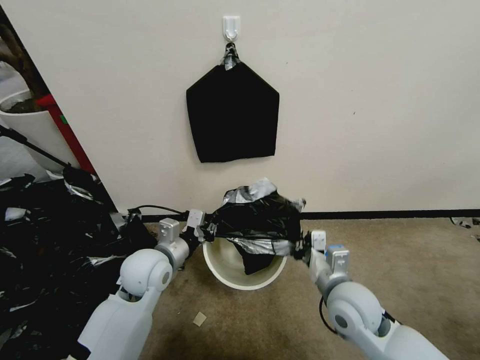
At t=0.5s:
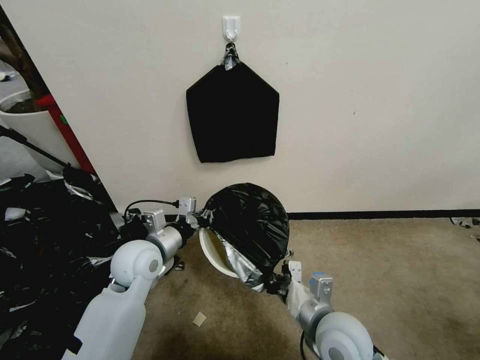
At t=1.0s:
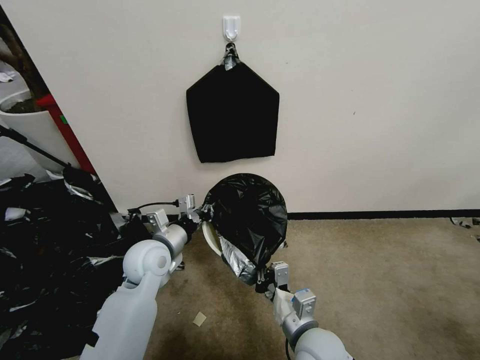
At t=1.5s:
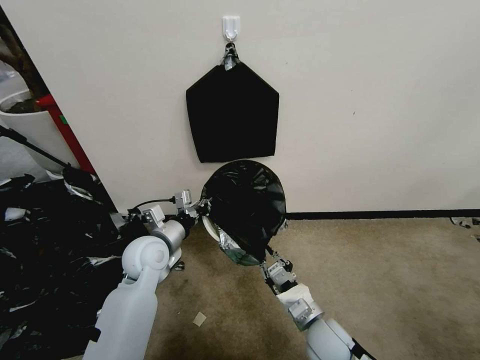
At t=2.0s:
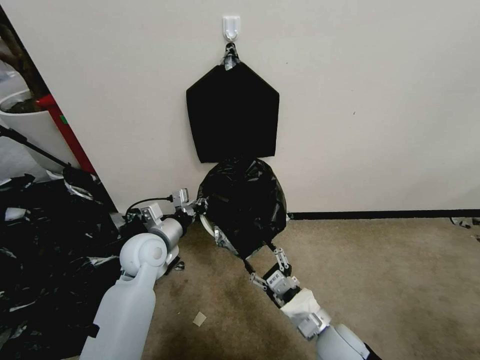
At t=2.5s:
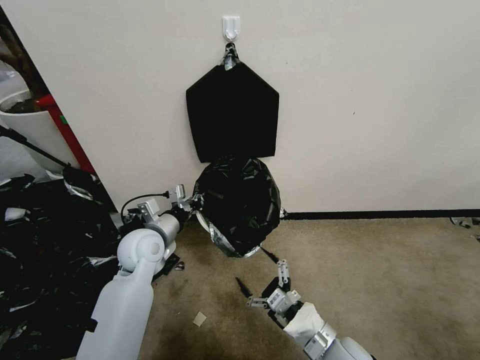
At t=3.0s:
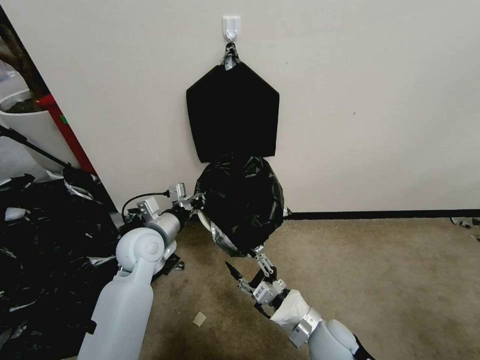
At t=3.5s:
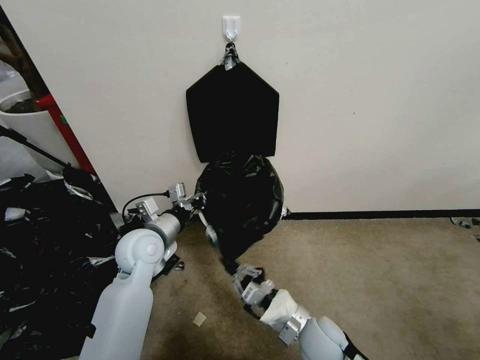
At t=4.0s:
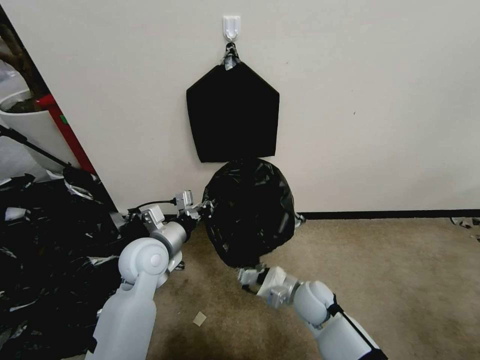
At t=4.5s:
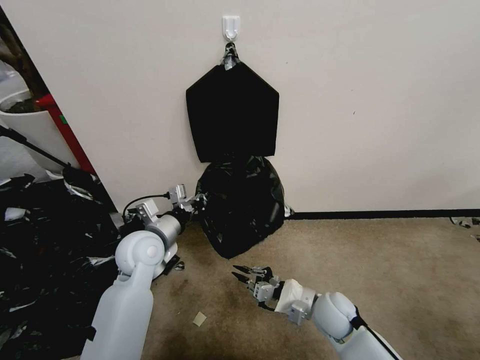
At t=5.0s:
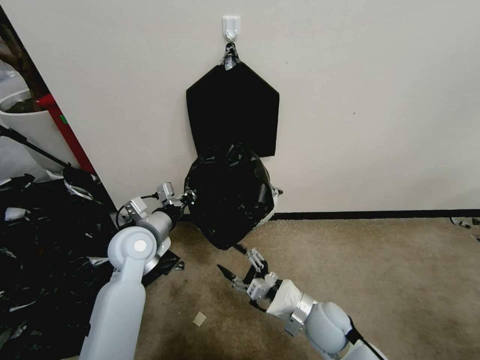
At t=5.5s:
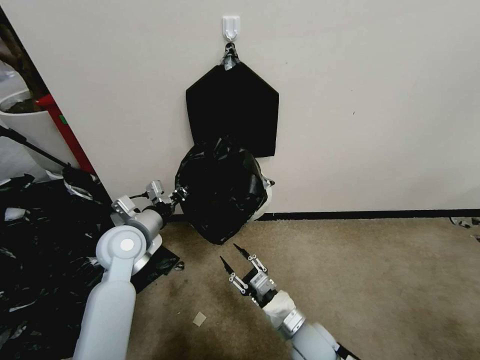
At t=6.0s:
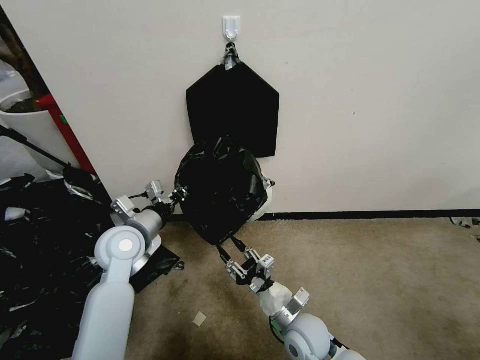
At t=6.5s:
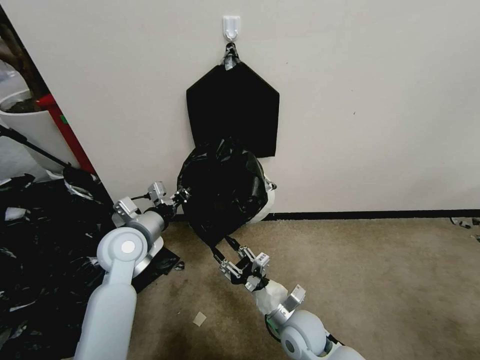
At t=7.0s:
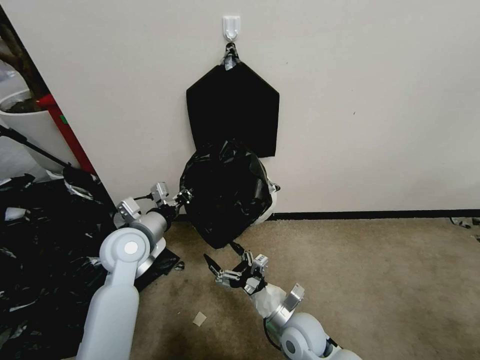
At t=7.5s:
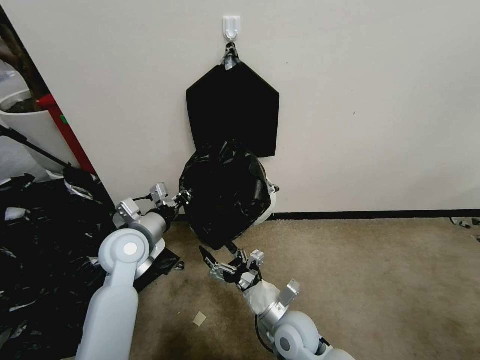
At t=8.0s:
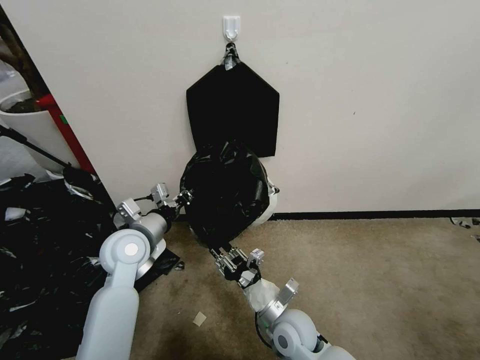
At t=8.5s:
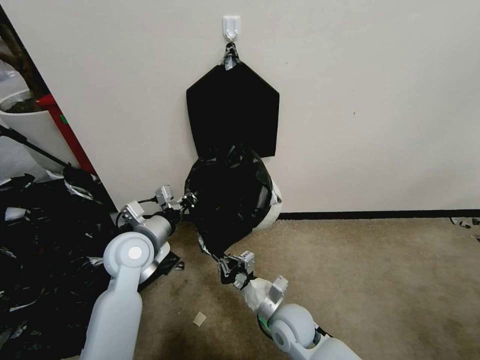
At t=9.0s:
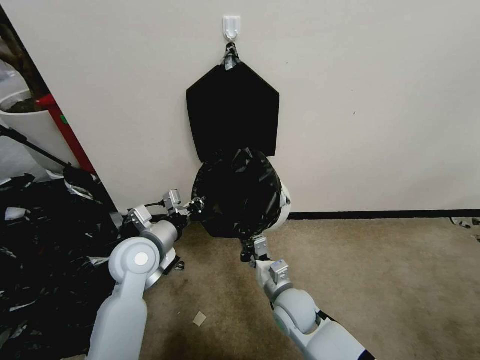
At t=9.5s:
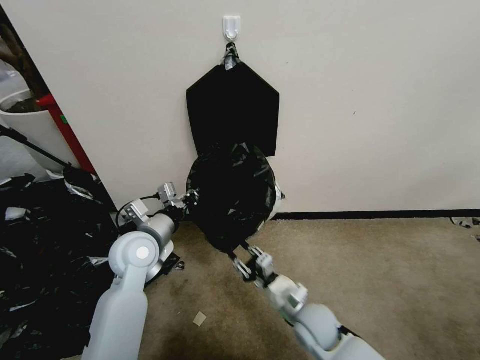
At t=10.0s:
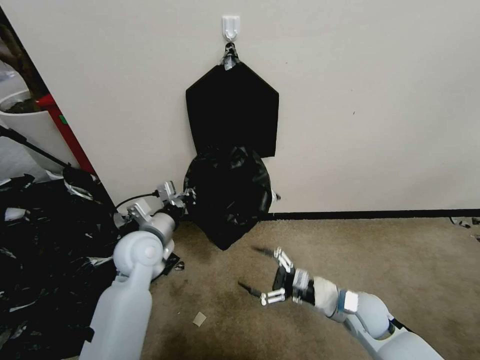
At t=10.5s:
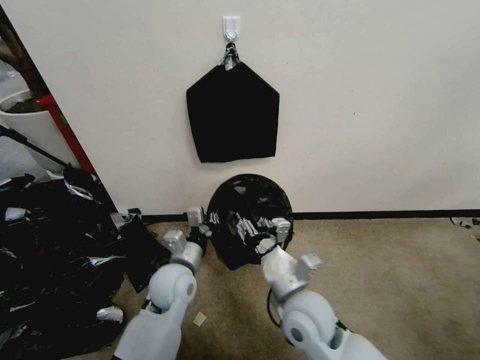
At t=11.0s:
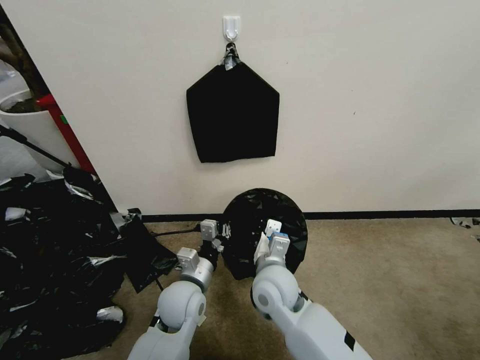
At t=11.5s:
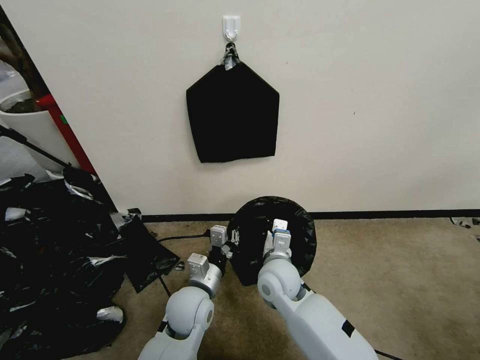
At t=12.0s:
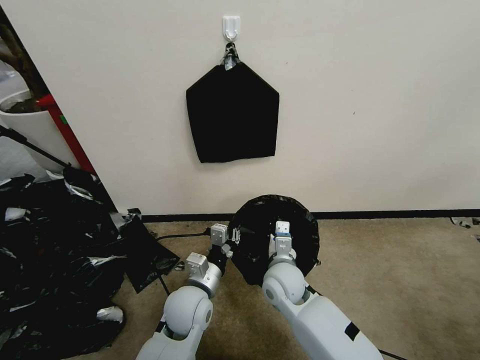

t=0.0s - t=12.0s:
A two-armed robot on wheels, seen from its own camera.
Task of the whole recording: Place a trash bag onto the trash bin.
t=0.0s - t=2.0s: The right gripper heads downward and backward, covering approximately 10 cm, and opens up.
t=2.0s - t=4.0s: The right gripper travels forward by about 10 cm, and closes.
t=4.0s - t=6.0s: The right gripper moves backward, some 5 cm, and opens up; the left gripper shifts by about 5 cm.
t=6.0s - t=8.0s: The right gripper opens, then closes once more.
t=8.0s - t=10.0s: The right gripper is displaced to the right by some 15 cm, and opens.
t=10.0s - t=12.0s: The right gripper travels to the left by some 15 cm, and closes up, while the left gripper moves to the right, downward and backward, roughly 15 cm.

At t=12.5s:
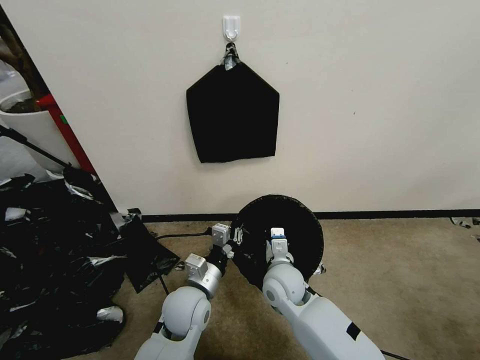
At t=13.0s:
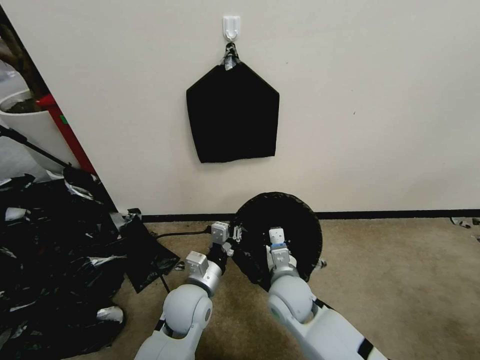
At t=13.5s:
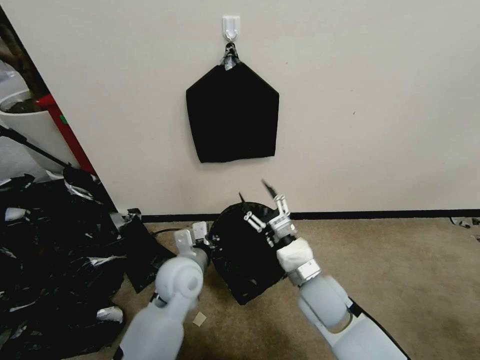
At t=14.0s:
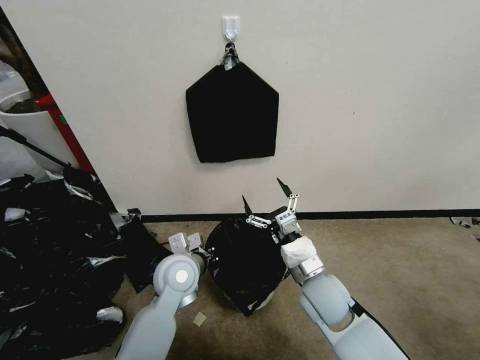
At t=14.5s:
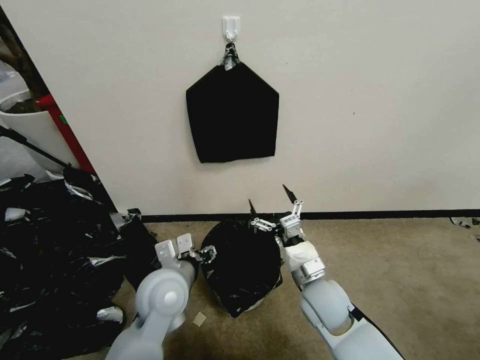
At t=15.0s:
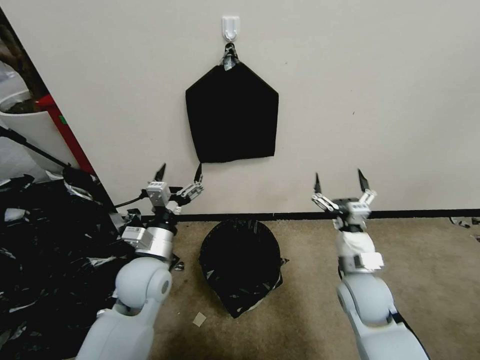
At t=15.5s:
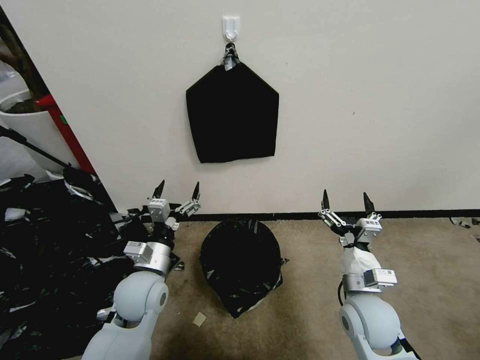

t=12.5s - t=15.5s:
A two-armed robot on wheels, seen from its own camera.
Task of the whole recording: Place a trash bag onto the trash bin.
t=12.5s - t=14.0s: The left gripper is displaced upward and forward by approximately 5 cm. The right gripper moves to the right, about 10 cm, and opens its fingers.
t=14.0s - t=15.5s: The right gripper heads to the right, covering some 10 cm, while the left gripper is displaced to the left by approximately 5 cm, and opens its fingers.

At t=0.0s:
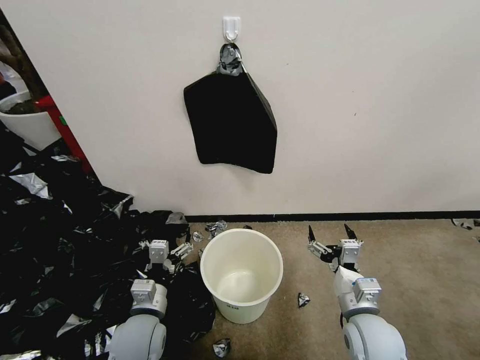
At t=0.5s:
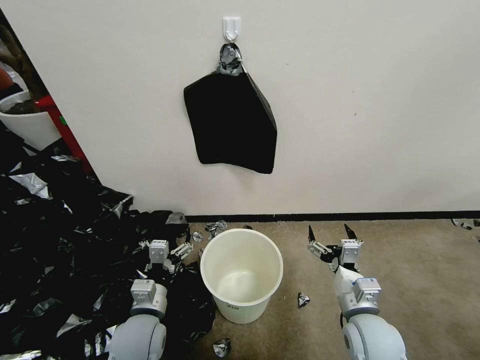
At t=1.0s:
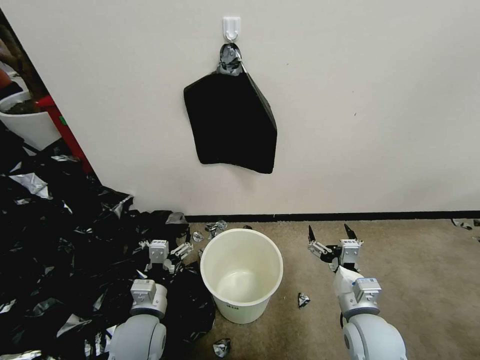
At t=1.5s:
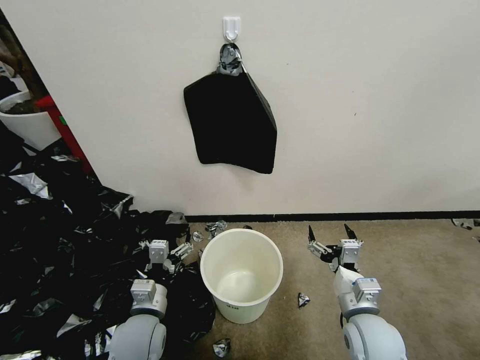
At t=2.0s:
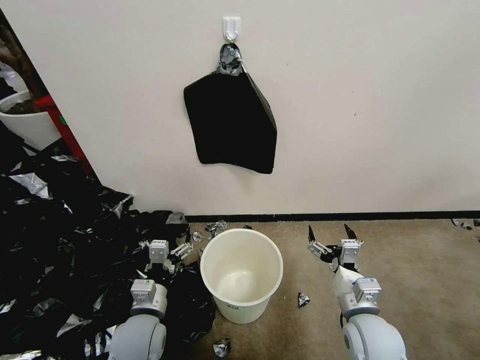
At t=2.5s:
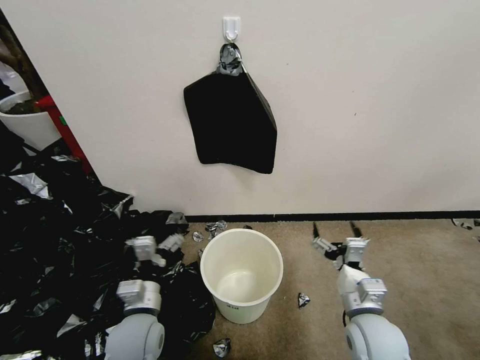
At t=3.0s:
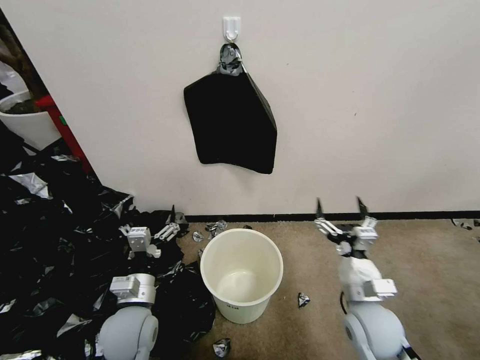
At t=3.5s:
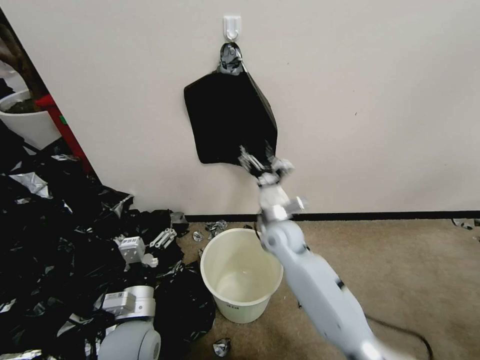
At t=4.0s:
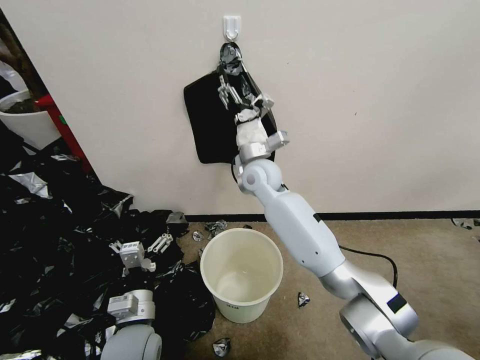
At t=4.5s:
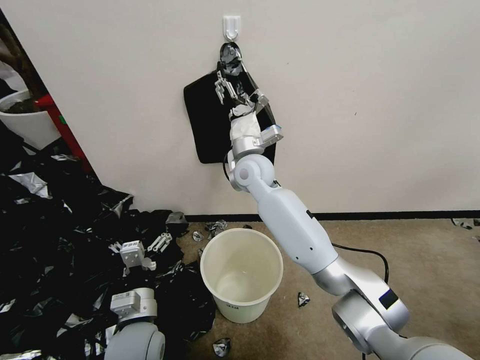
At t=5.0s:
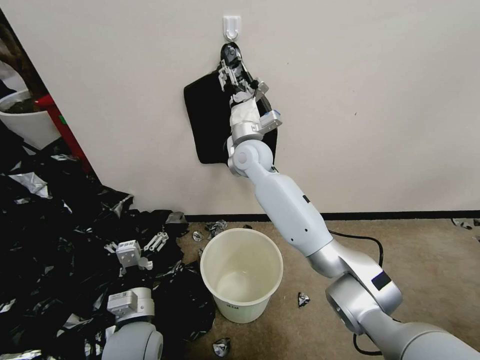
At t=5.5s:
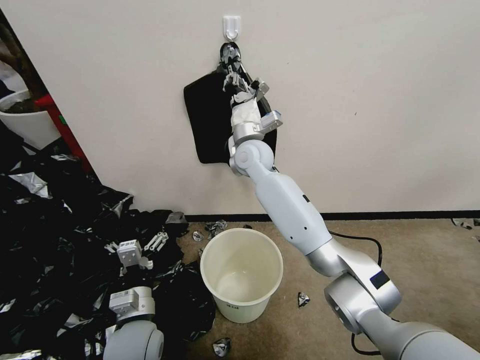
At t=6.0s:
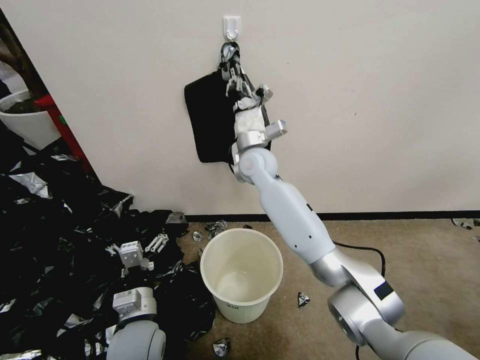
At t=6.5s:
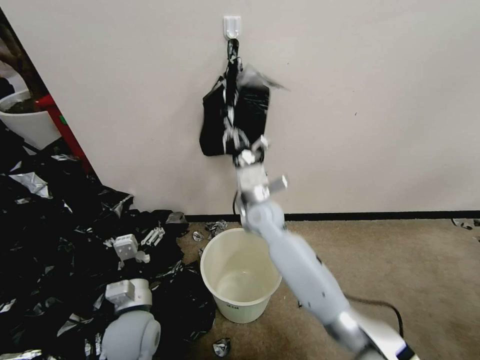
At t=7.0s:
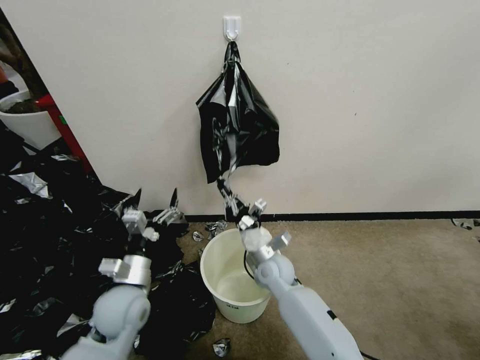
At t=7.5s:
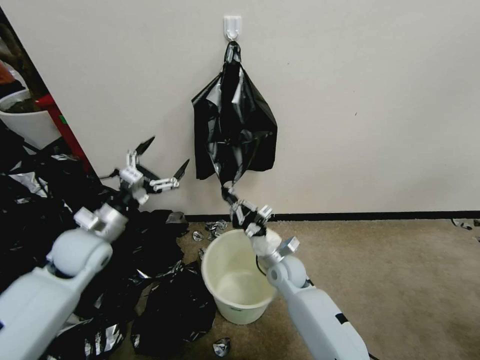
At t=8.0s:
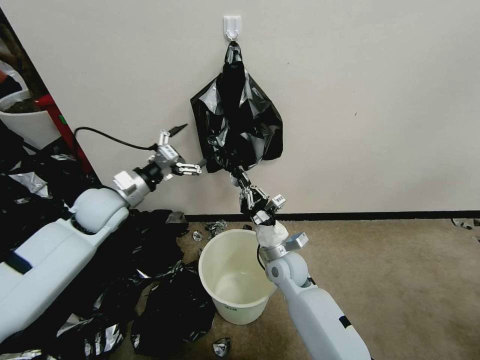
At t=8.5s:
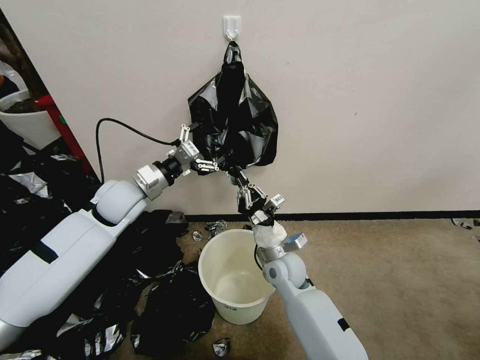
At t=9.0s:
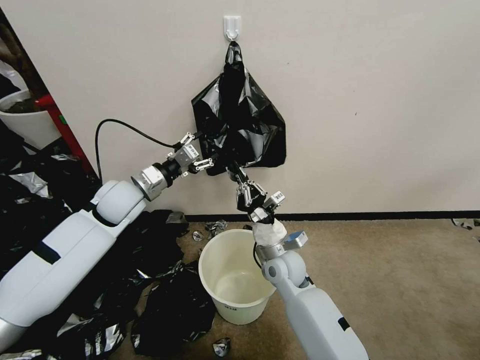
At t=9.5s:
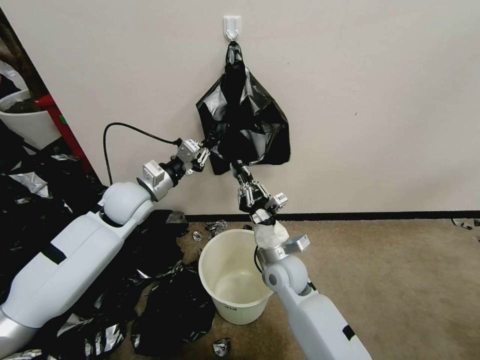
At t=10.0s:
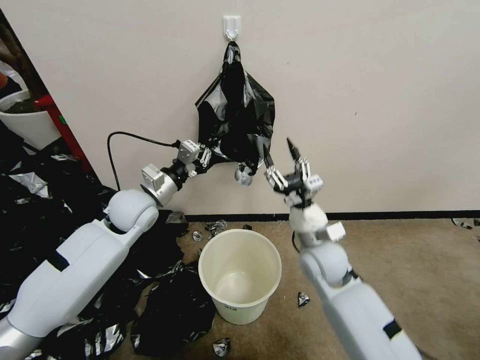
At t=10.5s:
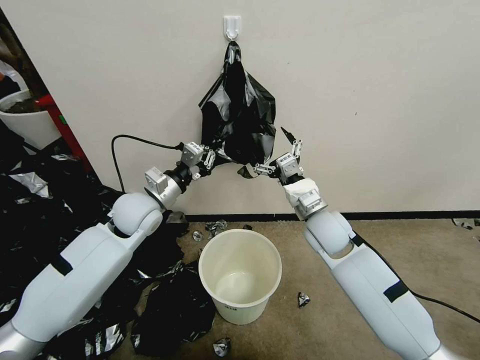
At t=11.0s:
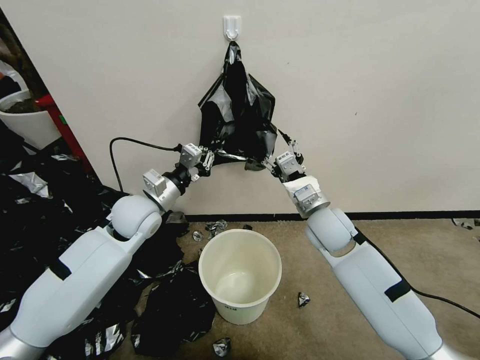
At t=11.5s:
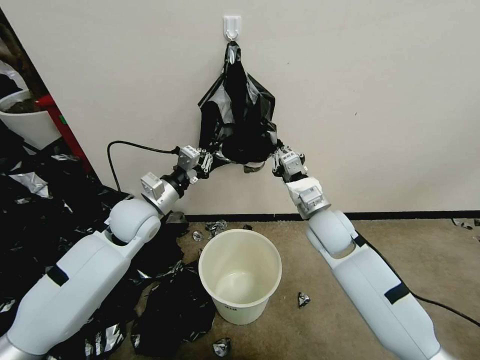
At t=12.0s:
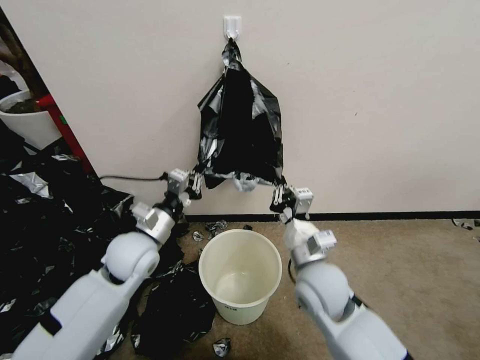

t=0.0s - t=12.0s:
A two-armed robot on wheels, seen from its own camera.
Task of the whole recording: Place a trash bag onto the trash bin.
t=2.0s - t=4.0s: The right gripper travels forward, to the left and upward by about 40 cm.
t=4.0s - t=6.0s: The right gripper closes its fingers.
t=6.0s - t=8.0s: The right gripper moves downward and backward, approximately 25 cm. The left gripper travels forward, upward and to the left by approximately 30 cm.
t=8.0s - t=10.0s: The right gripper heads upward and to the right, covering approximately 10 cm, and opens; the left gripper is displaced to the right by roughly 5 cm, and closes its fingers.
t=10.0s - t=12.0s: Both grippers travel together backward, some 5 cm. The right gripper closes.
